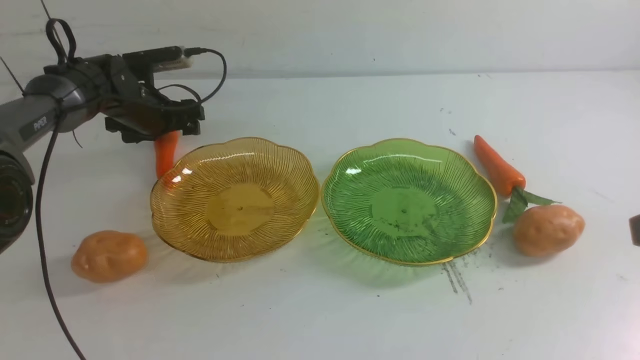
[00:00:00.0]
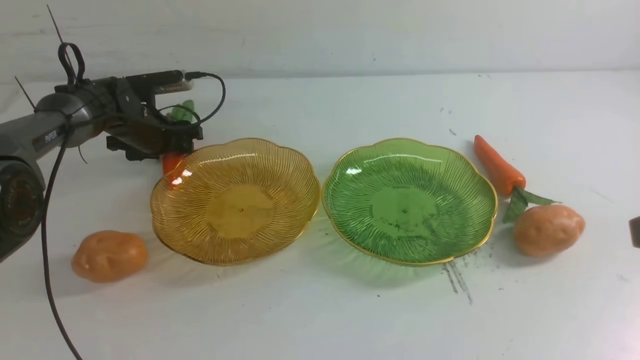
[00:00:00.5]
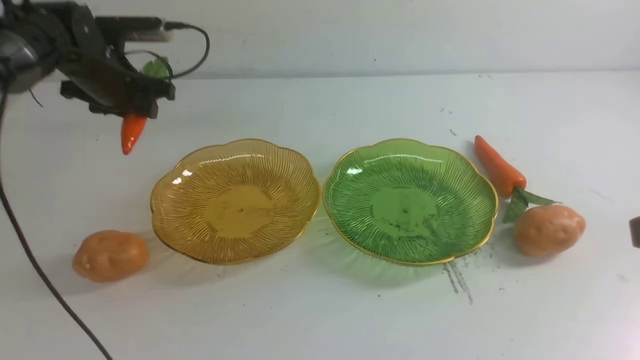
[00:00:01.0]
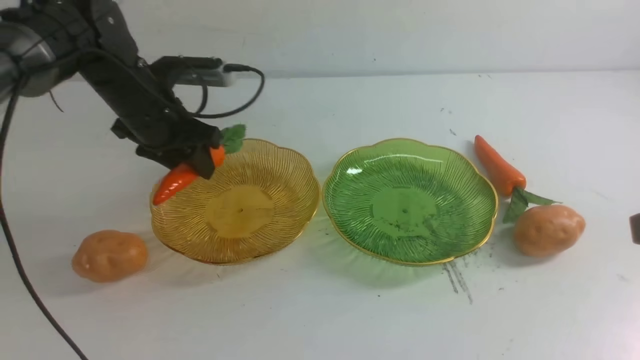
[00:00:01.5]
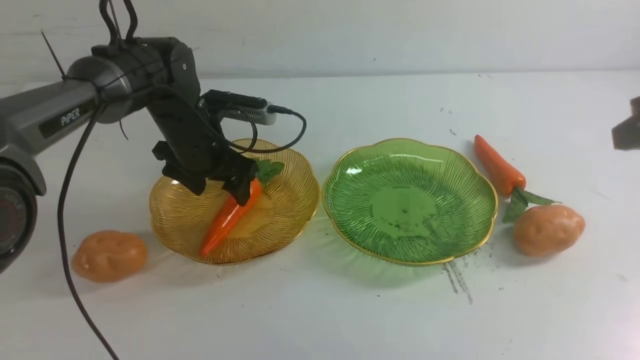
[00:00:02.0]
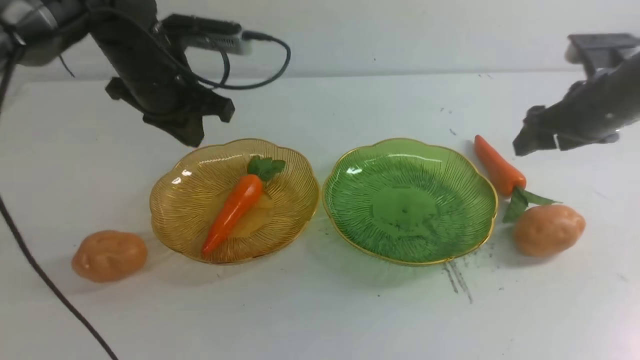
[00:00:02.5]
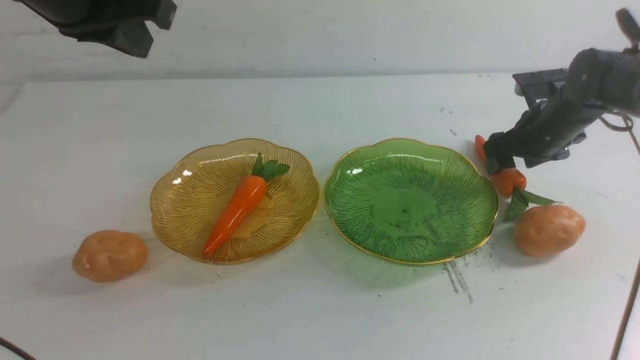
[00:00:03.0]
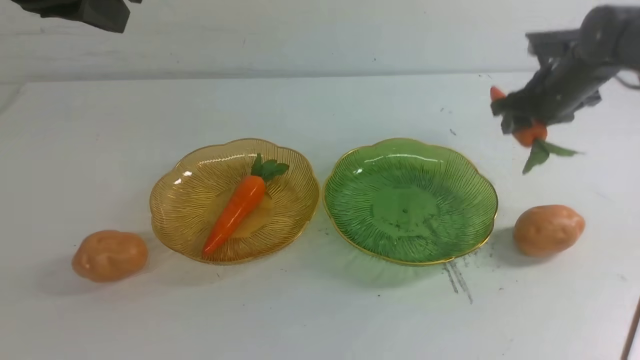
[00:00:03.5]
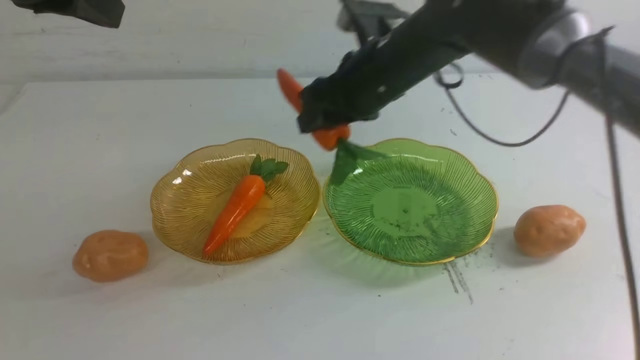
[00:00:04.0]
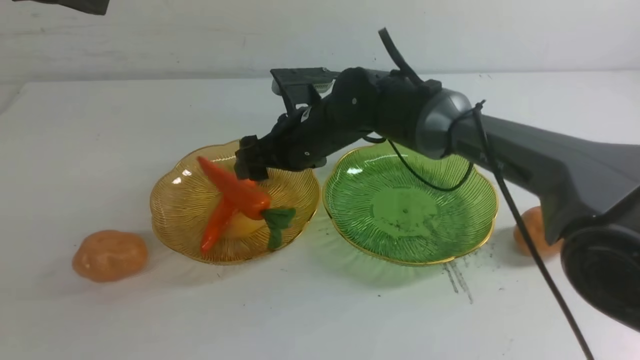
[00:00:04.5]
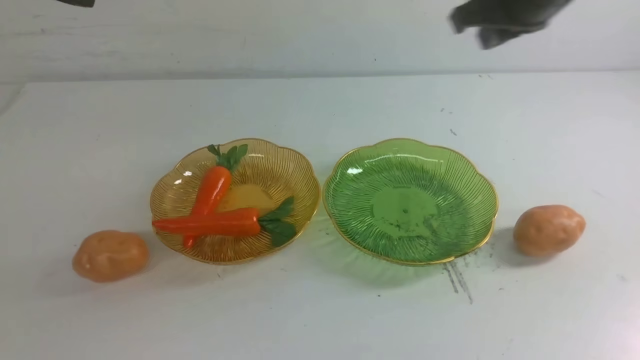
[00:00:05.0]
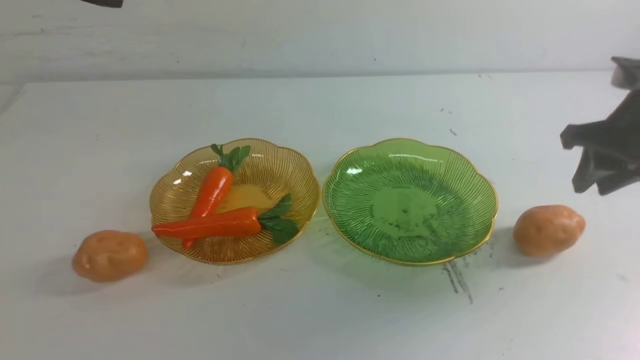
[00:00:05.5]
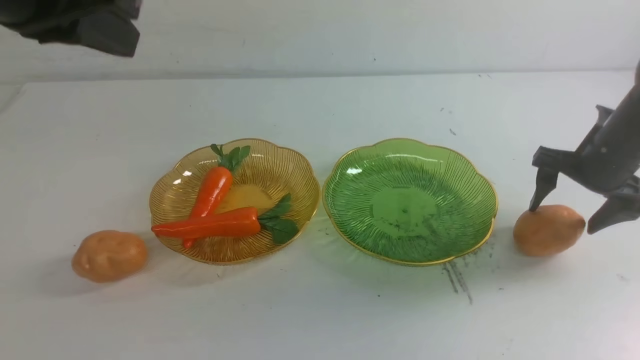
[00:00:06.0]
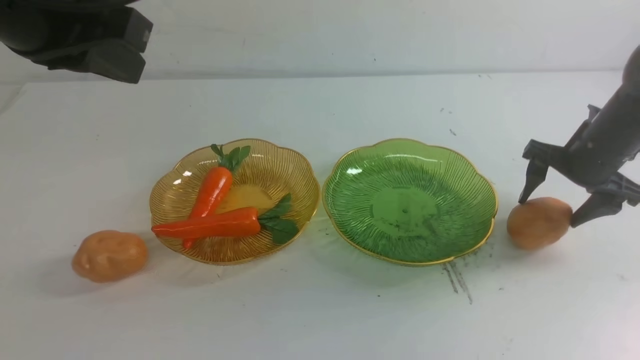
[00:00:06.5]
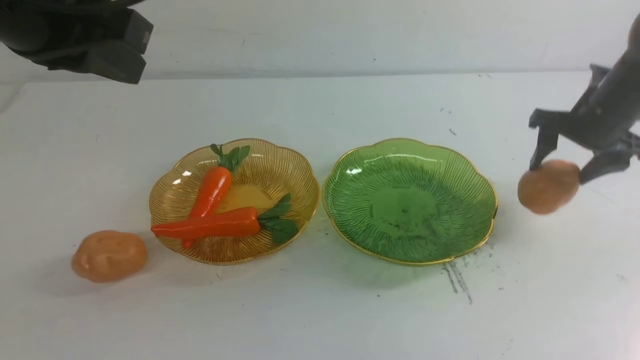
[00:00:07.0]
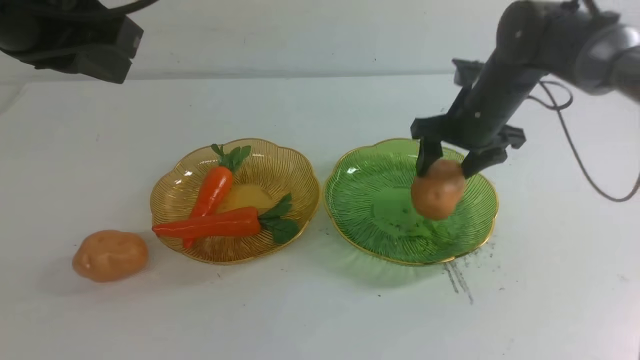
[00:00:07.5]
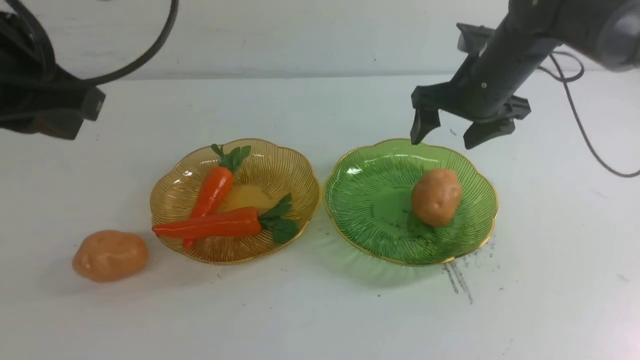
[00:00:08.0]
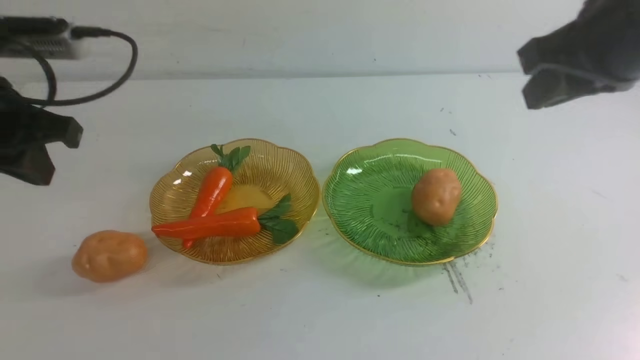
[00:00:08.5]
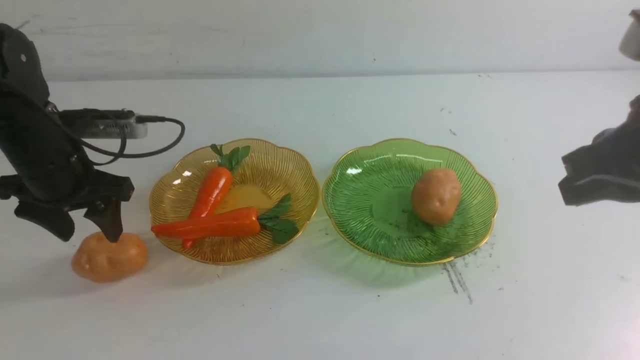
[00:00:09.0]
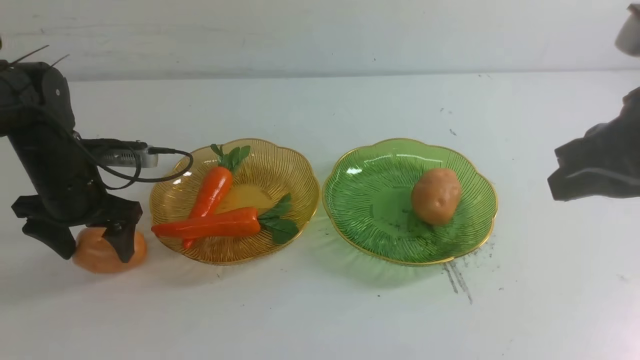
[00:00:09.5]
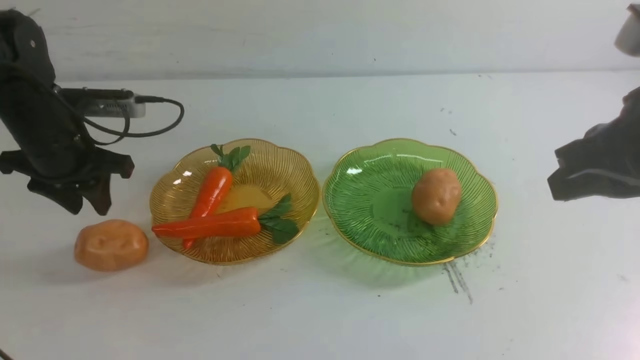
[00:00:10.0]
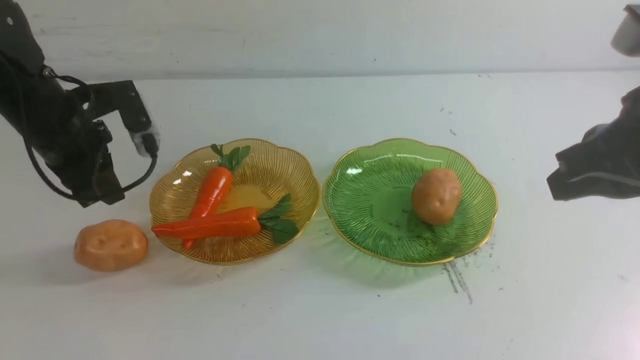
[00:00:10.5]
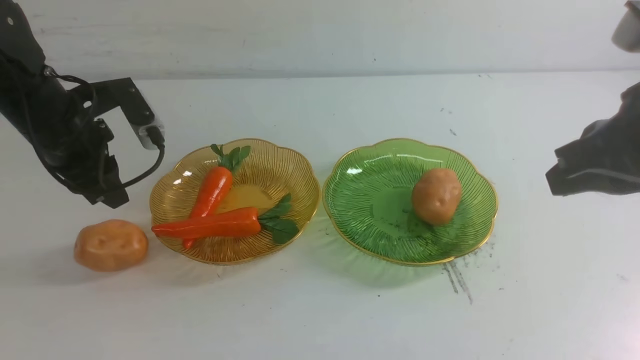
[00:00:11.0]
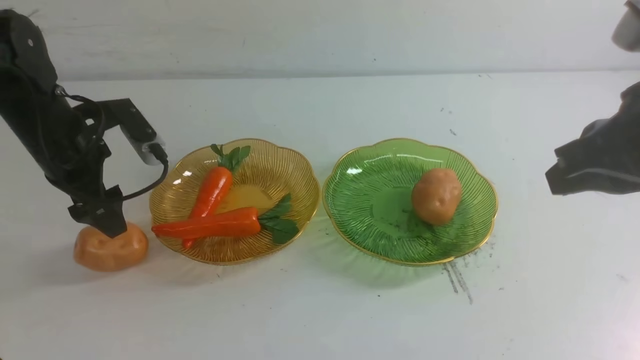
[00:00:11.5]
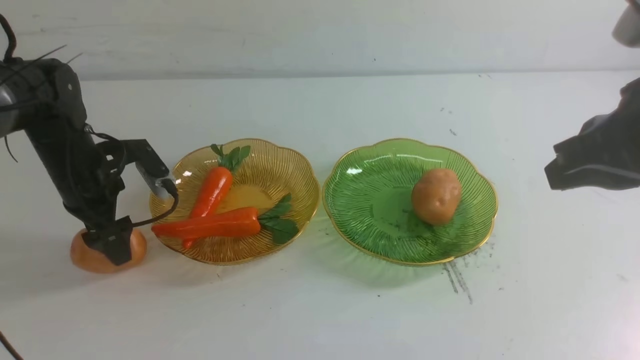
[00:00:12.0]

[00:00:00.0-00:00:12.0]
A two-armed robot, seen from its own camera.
Step, 00:00:00.0 to 00:00:02.0: use the left arm to grab a carrot and put it into the left plate.
Step, 00:00:02.5 to 00:00:04.5: use the right arm to grab a carrot and put it into the left plate.
Step, 00:00:05.0 to 00:00:08.0: Grab a potato with your right arm and put it on the right plate.
00:00:00.0 to 00:00:02.0: The right gripper heads forward, covering roughly 10 cm. The left gripper is displaced to the right and backward by about 15 cm.
00:00:02.0 to 00:00:04.0: The right gripper travels to the left and forward by some 30 cm; the left gripper heads upward and backward, covering about 30 cm, and closes up.
00:00:04.0 to 00:00:06.0: The right gripper moves to the right, some 25 cm, and opens.
00:00:06.0 to 00:00:08.0: The left gripper ends up some 5 cm from where it was. Meanwhile the right gripper goes about 15 cm to the left and upward.
00:00:08.0 to 00:00:10.0: The right gripper shifts roughly 25 cm backward and upward, and closes its fingers. The left gripper goes approximately 20 cm downward and forward, and opens up.
00:00:10.0 to 00:00:12.0: The left gripper heads downward, covering about 5 cm, and opens.

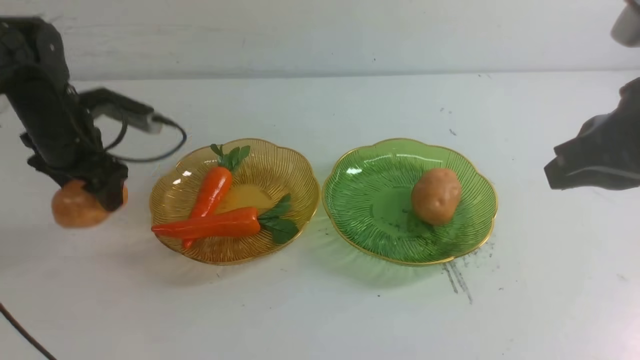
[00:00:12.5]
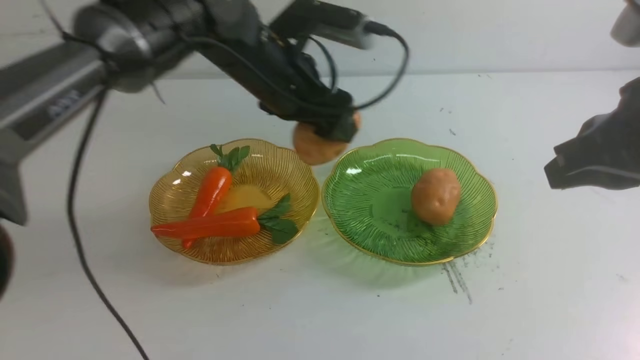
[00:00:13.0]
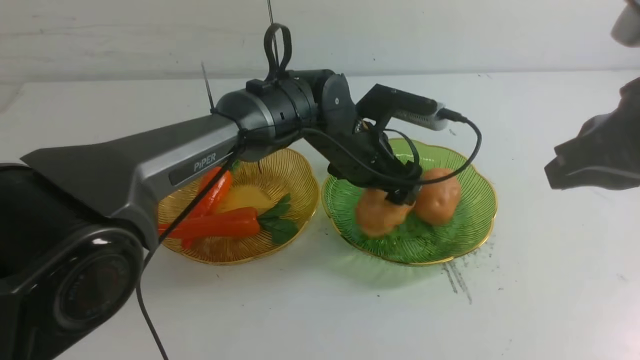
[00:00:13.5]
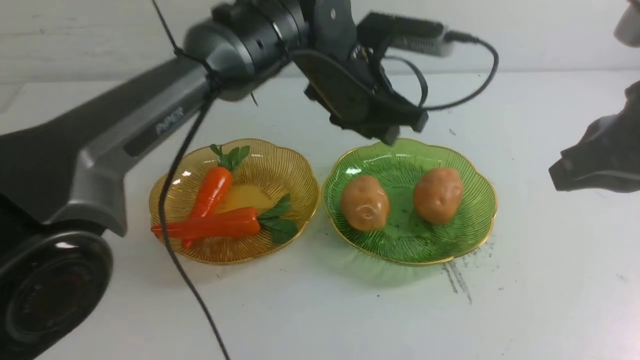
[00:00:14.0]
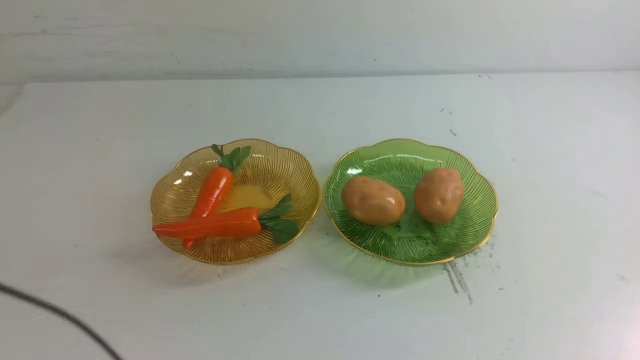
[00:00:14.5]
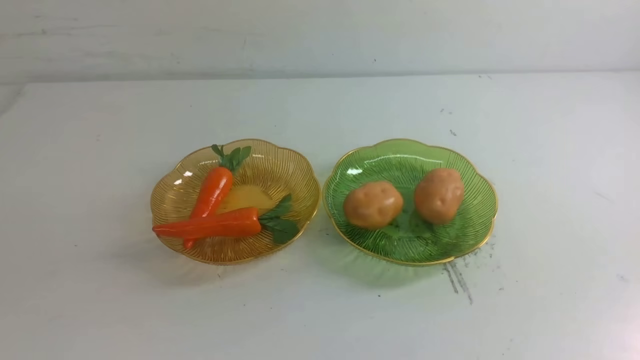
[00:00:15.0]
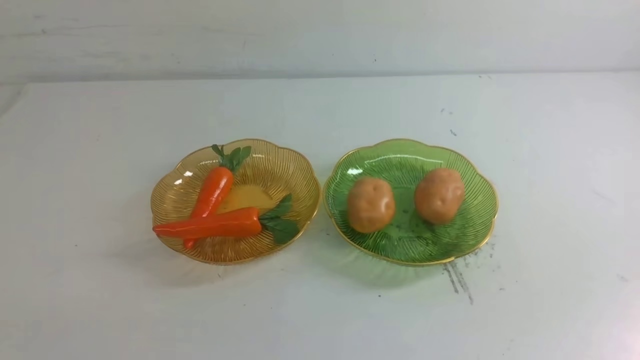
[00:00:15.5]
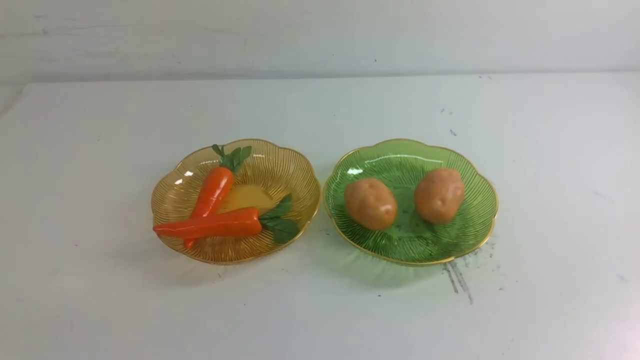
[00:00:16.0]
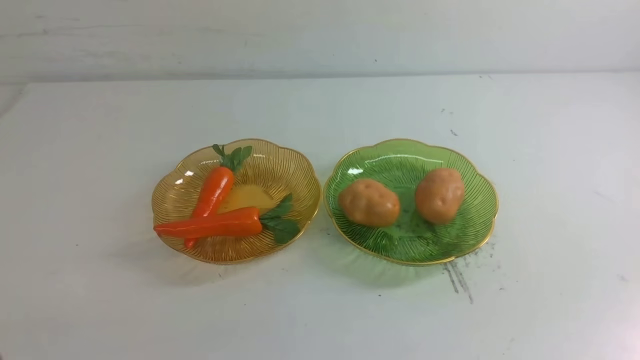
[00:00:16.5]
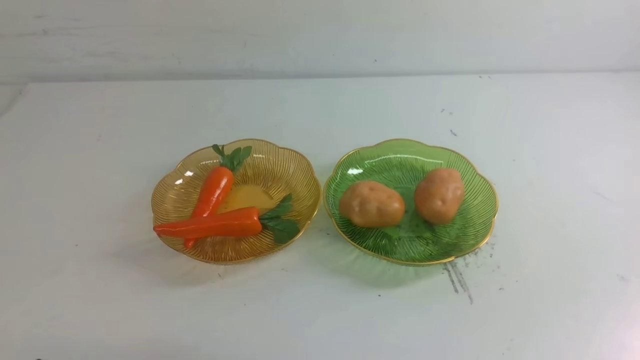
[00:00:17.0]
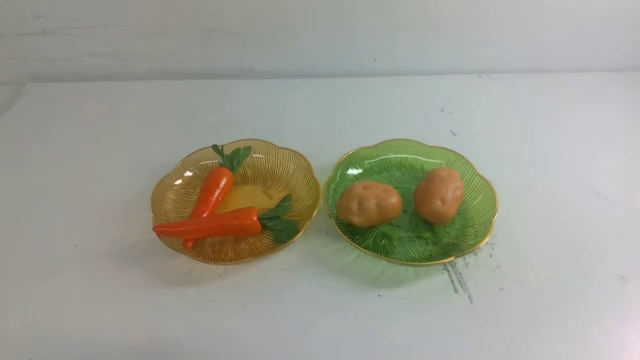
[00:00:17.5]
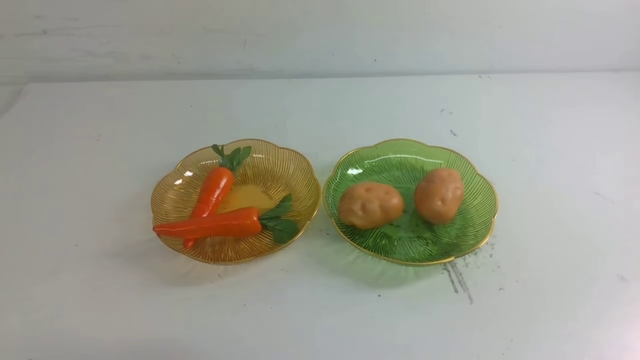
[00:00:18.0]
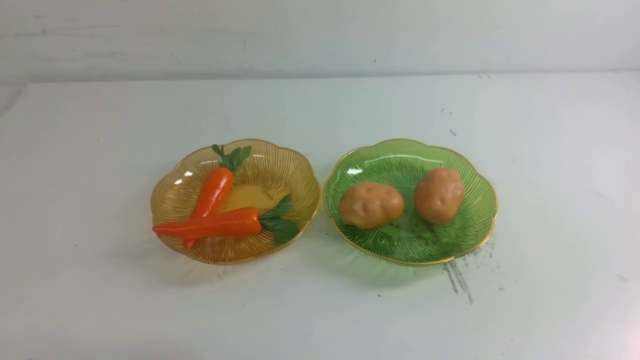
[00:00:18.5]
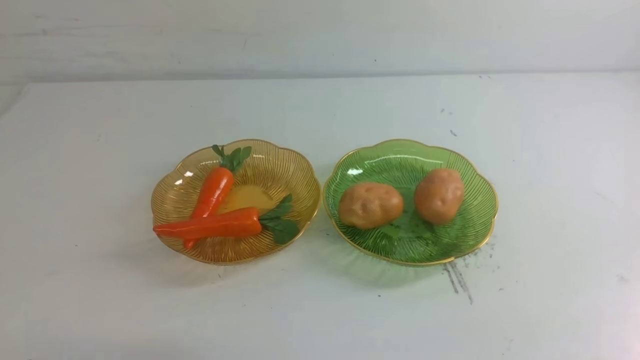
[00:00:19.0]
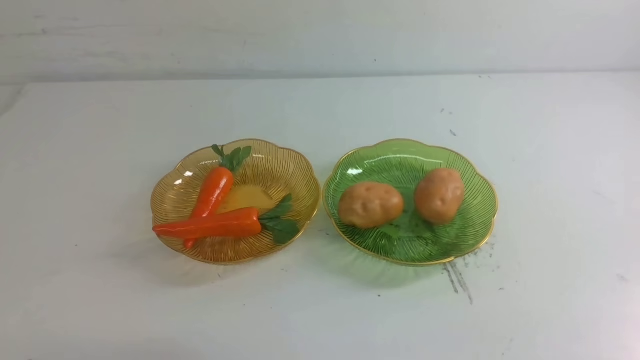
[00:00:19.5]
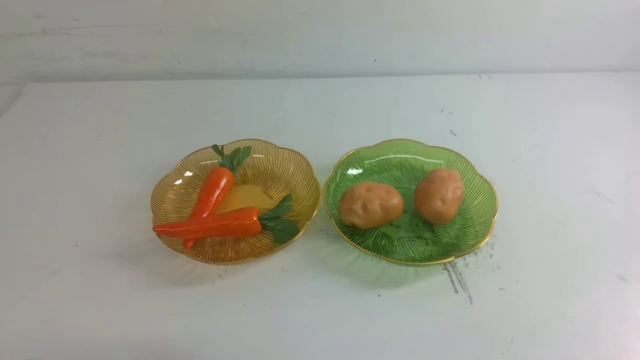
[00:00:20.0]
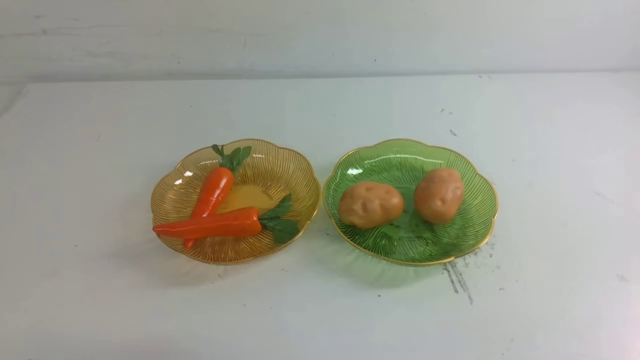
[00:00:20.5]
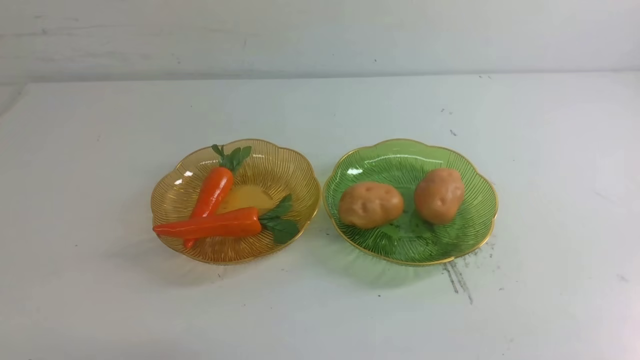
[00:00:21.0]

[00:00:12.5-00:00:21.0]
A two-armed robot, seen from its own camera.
00:00:12.5 to 00:00:14.5: The right gripper shifts approximately 15 cm backward and upward. The left gripper travels upward, backward and to the right by about 30 cm, and closes its fingers.
00:00:14.5 to 00:00:16.5: The left gripper travels backward, downward and to the left by about 35 cm.
00:00:19.0 to 00:00:21.0: Both grippers stay put.
